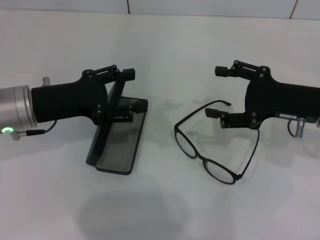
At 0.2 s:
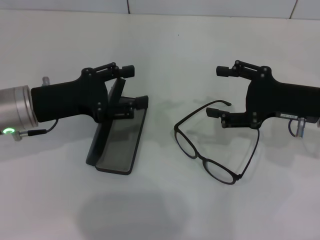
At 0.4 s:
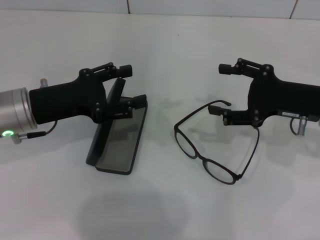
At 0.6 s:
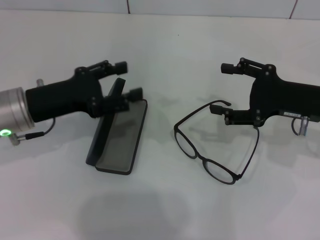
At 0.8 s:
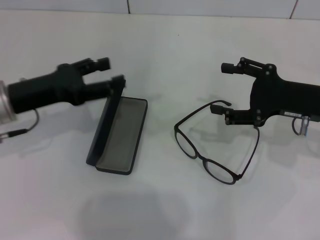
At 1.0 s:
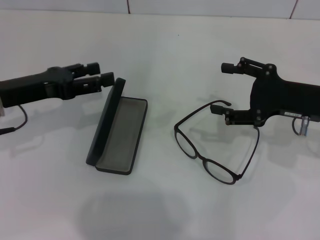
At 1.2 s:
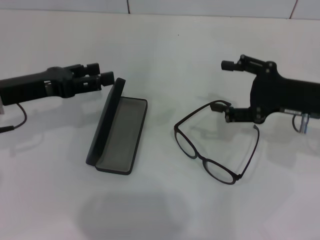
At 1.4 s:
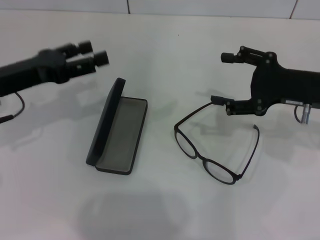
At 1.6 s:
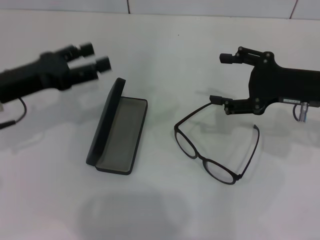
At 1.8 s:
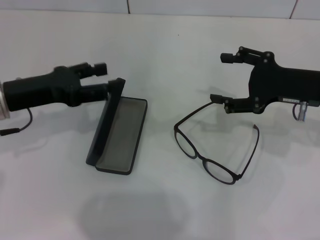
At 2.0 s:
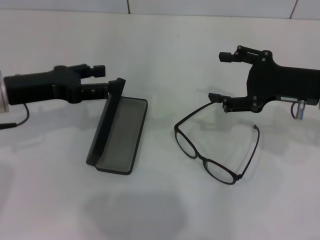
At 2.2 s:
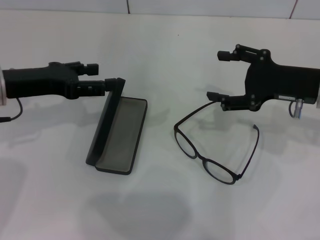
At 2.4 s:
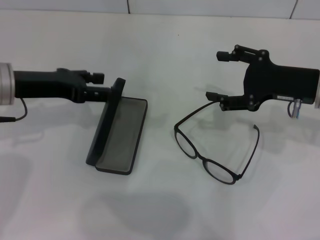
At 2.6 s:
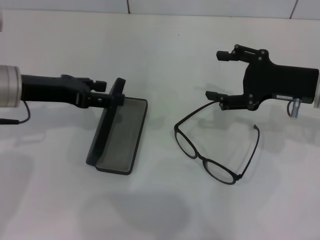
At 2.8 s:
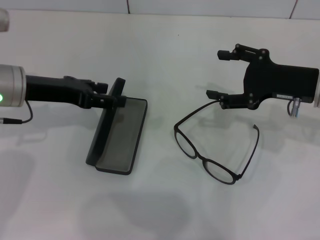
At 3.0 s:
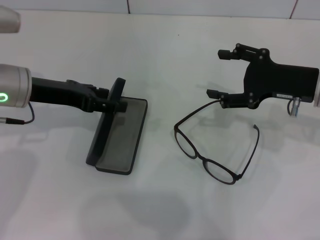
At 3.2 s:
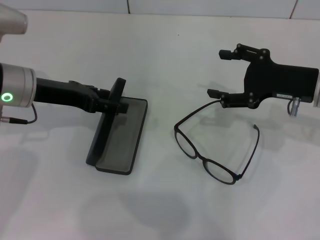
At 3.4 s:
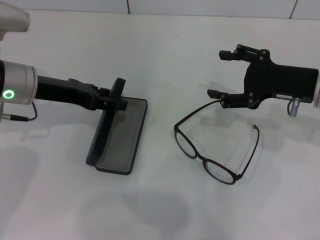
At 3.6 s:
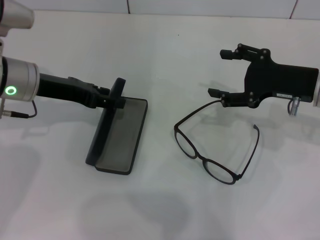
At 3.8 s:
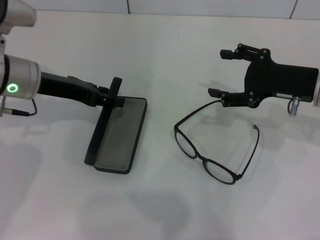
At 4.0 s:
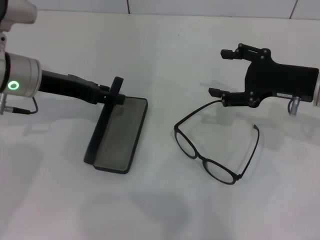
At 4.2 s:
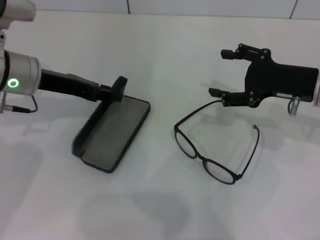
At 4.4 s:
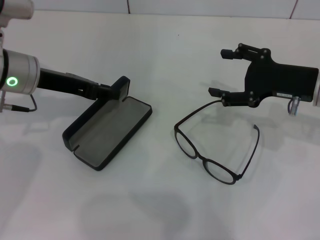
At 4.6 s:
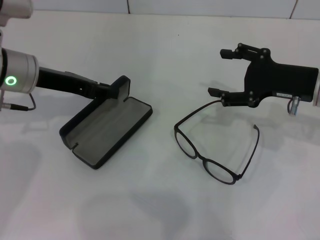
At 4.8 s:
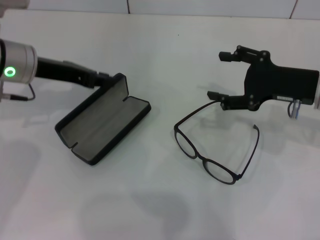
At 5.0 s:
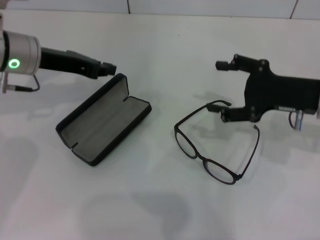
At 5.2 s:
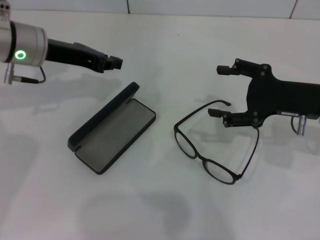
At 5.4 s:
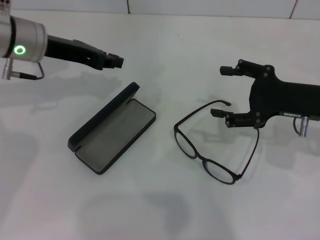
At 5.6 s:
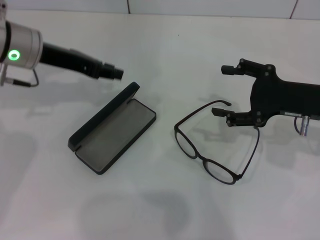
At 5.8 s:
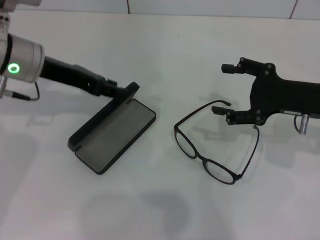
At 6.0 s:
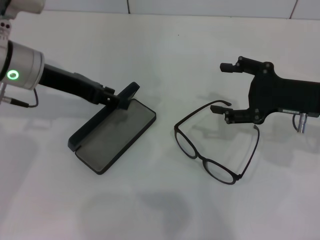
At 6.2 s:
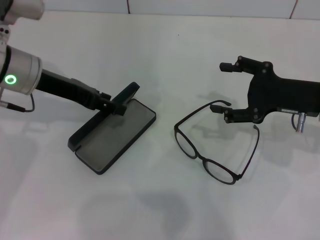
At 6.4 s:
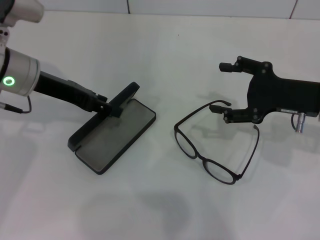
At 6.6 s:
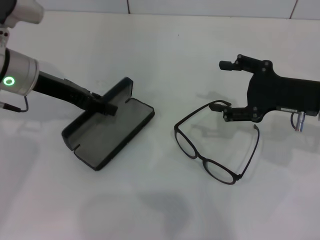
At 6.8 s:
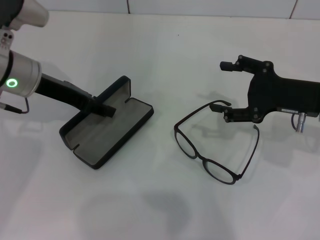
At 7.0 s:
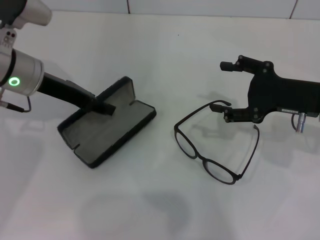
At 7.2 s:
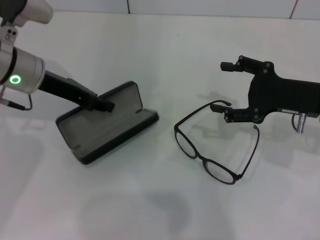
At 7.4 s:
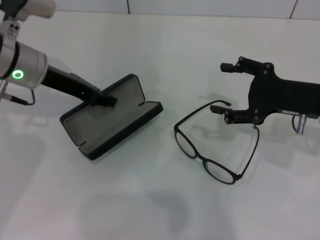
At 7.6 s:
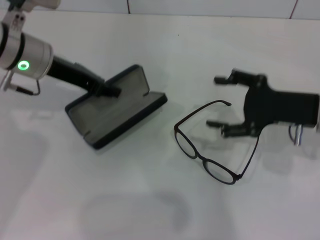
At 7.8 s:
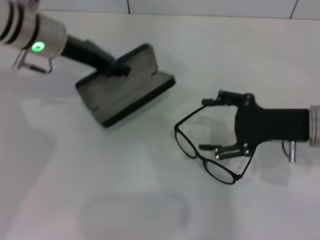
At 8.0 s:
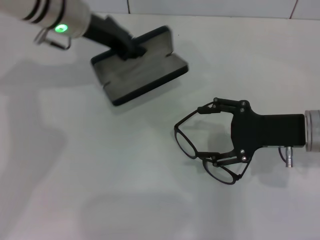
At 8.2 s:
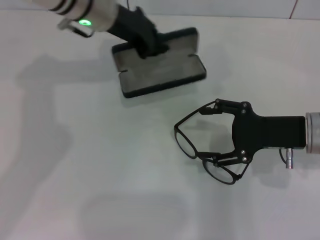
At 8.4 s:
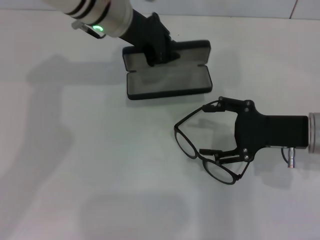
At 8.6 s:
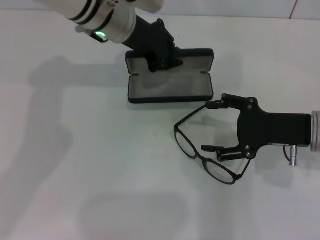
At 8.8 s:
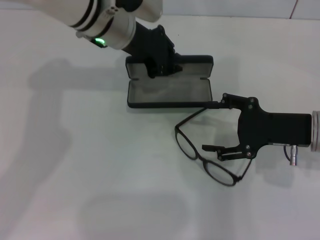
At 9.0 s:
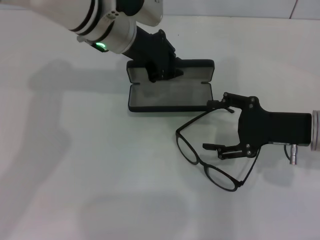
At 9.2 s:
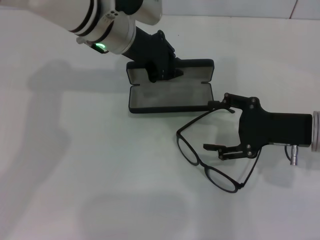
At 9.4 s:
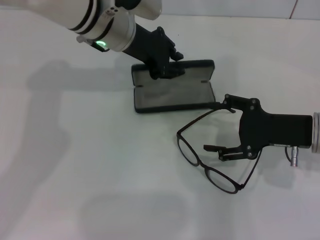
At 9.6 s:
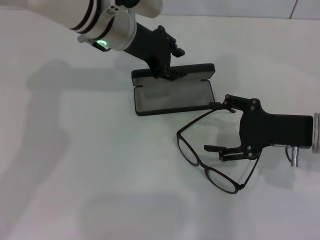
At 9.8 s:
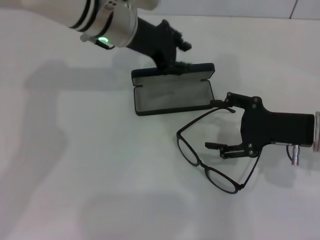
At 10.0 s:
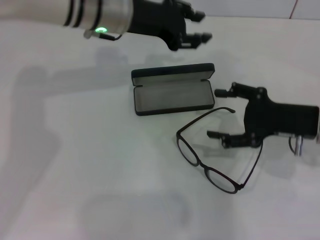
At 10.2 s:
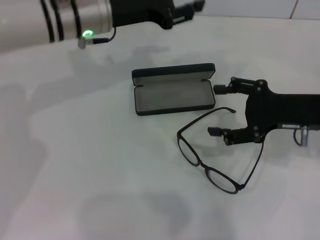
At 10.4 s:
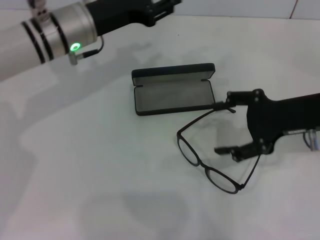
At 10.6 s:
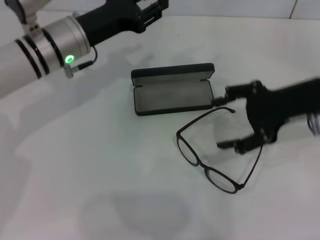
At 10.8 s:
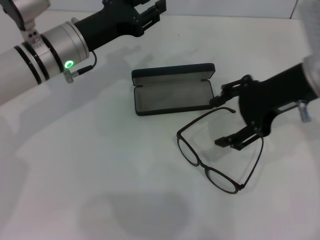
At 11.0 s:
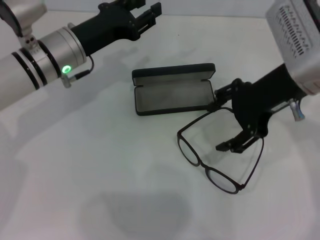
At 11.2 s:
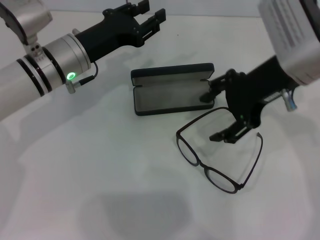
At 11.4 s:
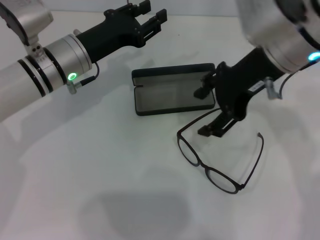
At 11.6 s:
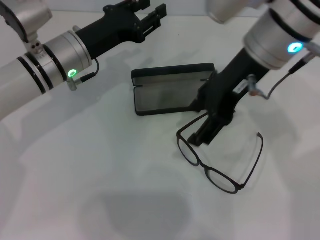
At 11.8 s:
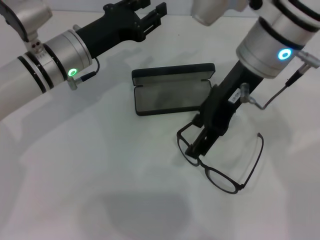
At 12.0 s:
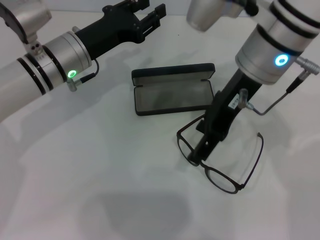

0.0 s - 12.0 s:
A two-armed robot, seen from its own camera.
Step, 0.0 s - 4.2 s: Grab the glasses case with your left hand.
Step, 4.4 s - 9.2 s: Place the glasses case in the center of the table with your left hand.
1.6 s - 3.0 s: The left gripper moves roughly 5 cm.
3.0 s - 4.4 s: The left gripper closes its fingers.
4.4 s - 6.0 s: The left gripper closes and opens again.
6.0 s - 7.6 s: The left gripper closes.
7.6 s - 9.0 s: The left gripper moves to the right, about 10 cm.
9.0 s - 10.4 s: The right gripper goes about 5 cm upward. The left gripper heads to the left, covering some 5 cm.
10.4 s - 12.0 s: The right gripper shifts approximately 15 cm to the left and upward.

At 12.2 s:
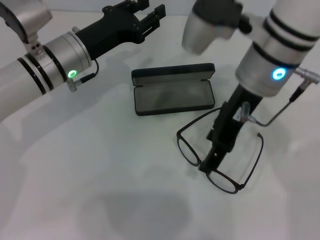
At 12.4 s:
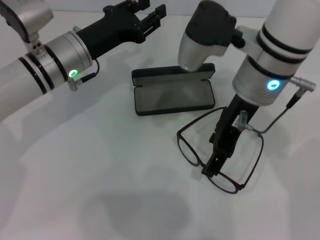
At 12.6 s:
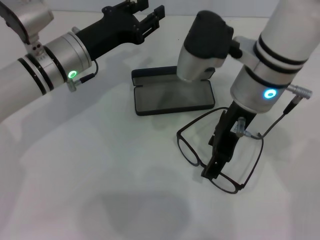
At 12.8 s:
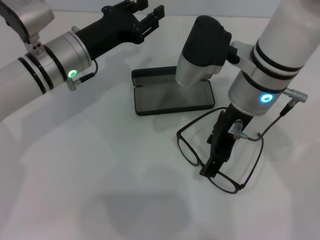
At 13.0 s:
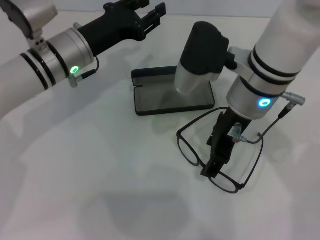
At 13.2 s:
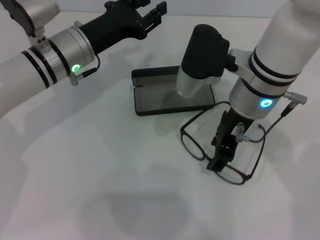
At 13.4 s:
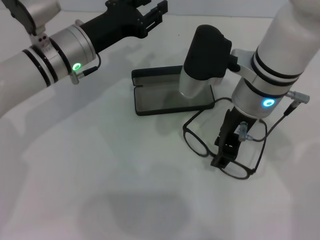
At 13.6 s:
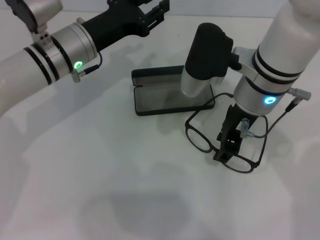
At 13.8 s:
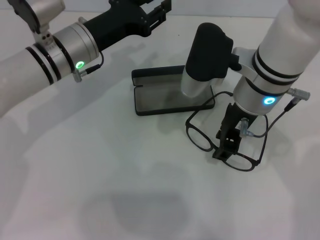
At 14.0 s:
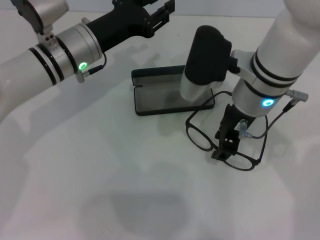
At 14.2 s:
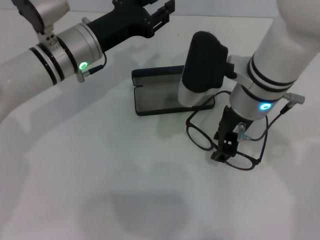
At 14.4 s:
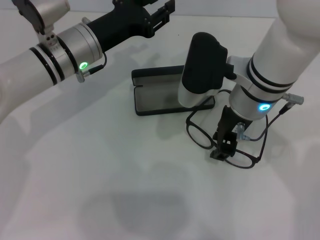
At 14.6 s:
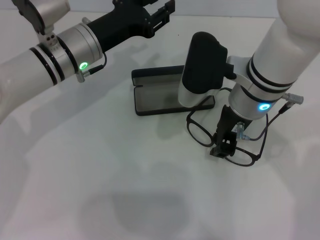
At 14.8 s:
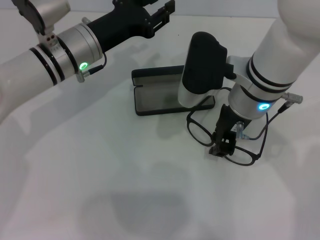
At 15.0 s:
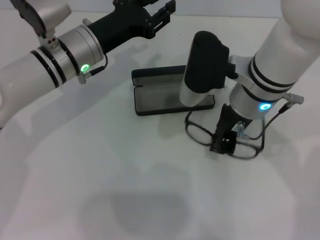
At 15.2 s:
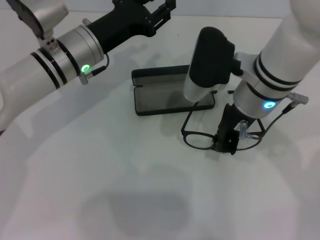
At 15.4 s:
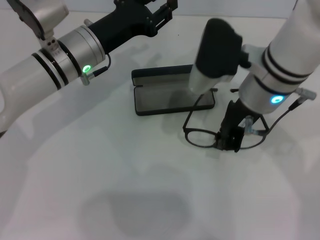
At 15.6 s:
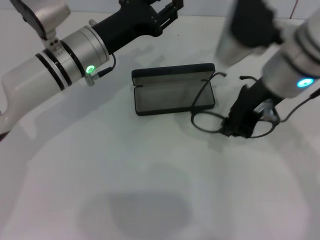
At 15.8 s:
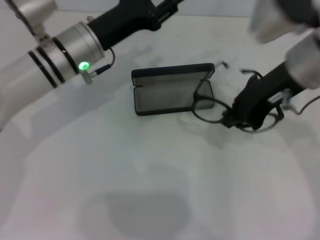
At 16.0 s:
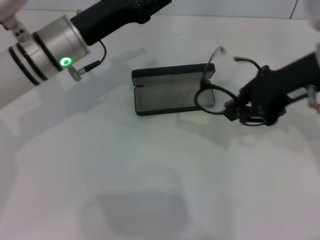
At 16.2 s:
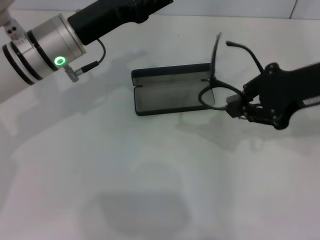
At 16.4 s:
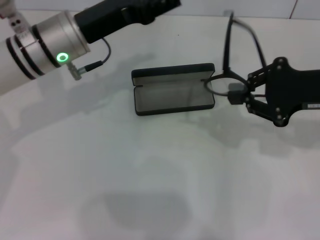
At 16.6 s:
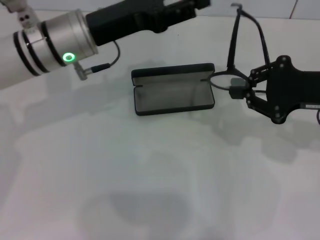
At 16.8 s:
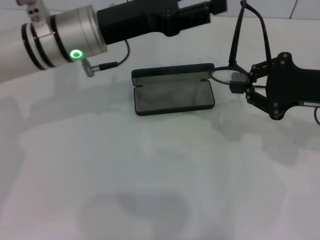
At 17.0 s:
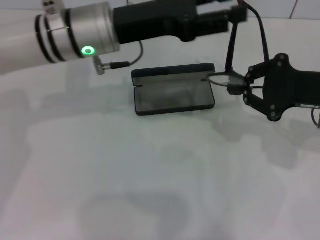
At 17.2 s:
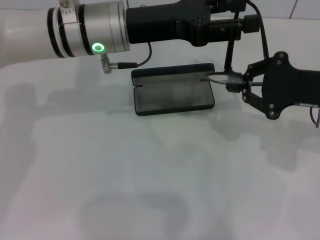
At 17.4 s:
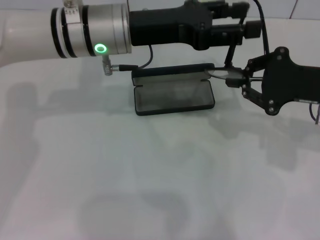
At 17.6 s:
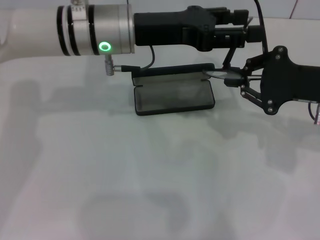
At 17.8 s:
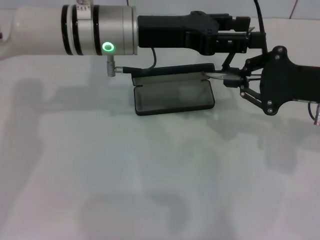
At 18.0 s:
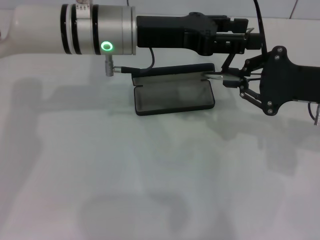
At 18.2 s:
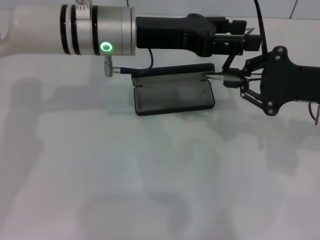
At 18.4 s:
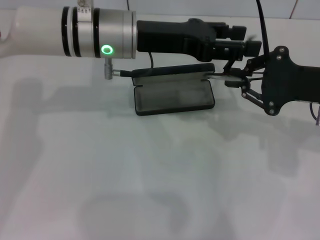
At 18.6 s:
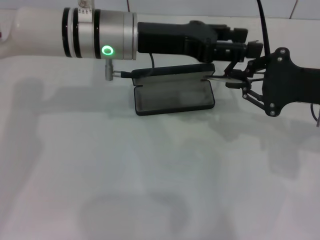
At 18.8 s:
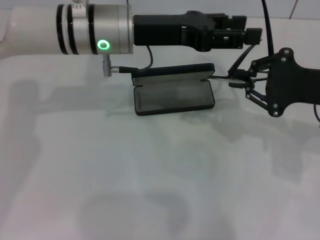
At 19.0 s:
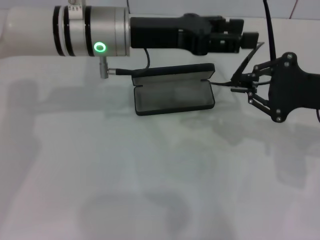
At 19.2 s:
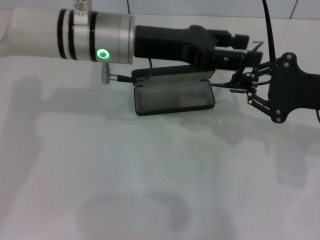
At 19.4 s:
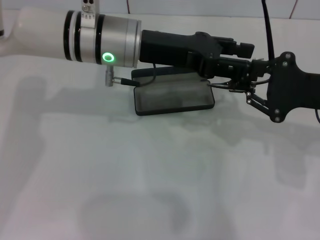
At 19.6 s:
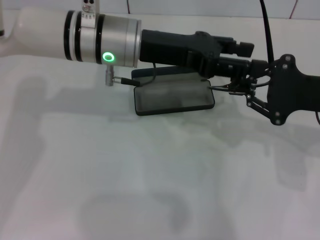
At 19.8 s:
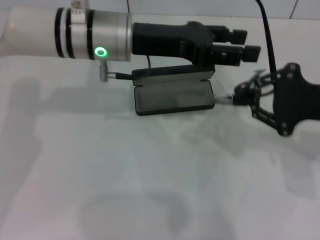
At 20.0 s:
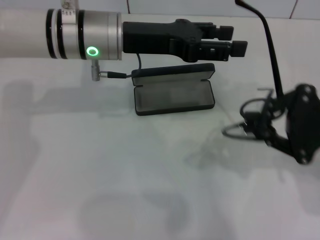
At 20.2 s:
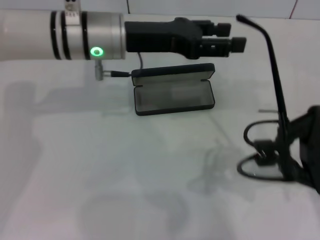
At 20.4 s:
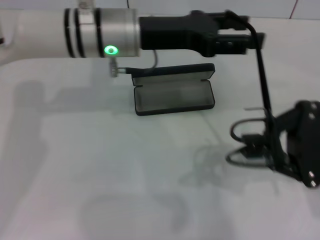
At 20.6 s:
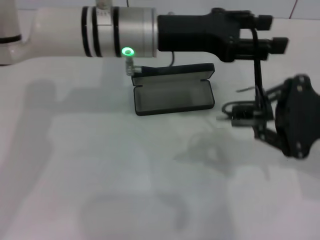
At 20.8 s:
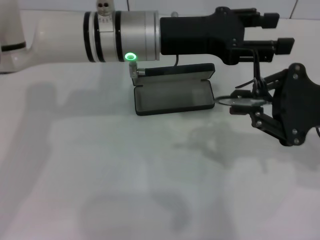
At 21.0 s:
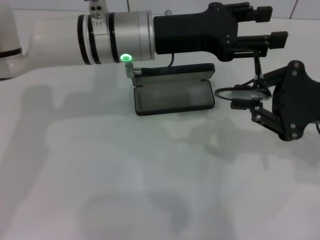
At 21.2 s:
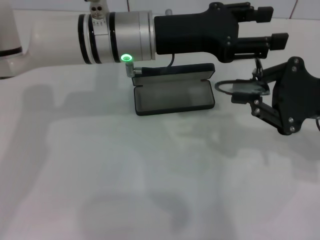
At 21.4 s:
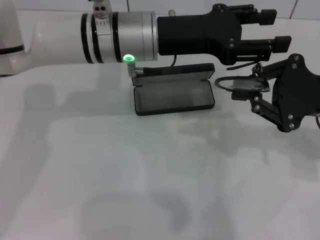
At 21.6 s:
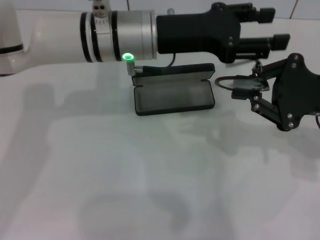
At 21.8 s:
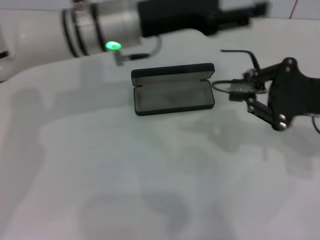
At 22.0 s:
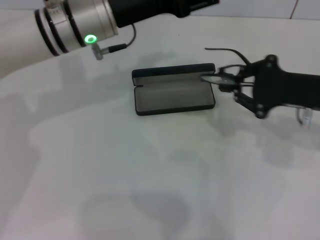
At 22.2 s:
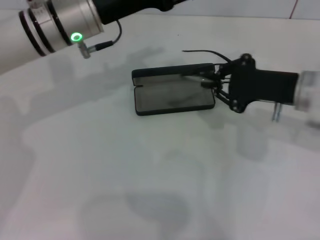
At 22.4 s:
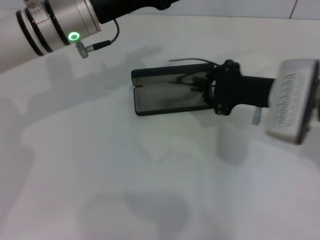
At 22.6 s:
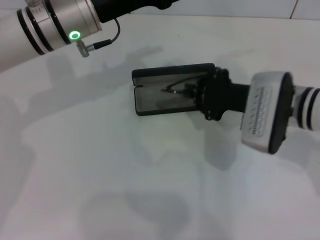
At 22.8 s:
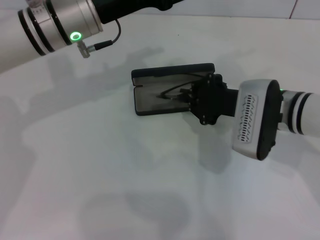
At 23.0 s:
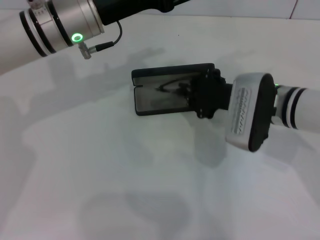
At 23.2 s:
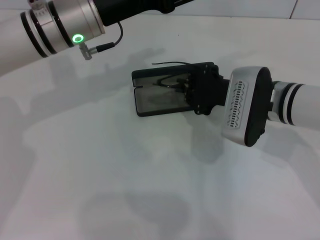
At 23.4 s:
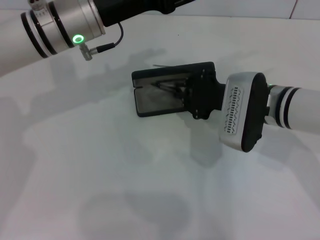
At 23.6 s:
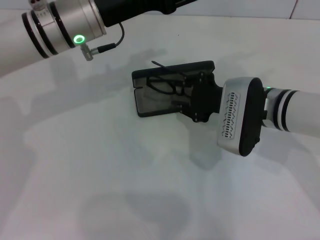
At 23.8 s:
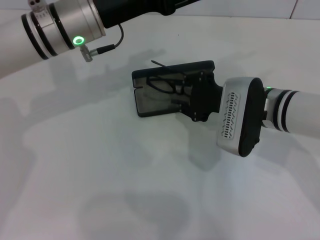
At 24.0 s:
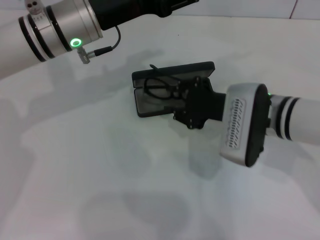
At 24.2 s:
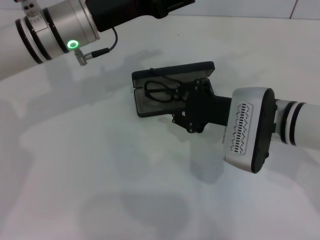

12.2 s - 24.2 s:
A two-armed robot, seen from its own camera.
Step, 12.2 s - 15.2 s: Grab the eyeglass frame with your right hand.
Step, 15.4 s - 21.8 s: Fold the frame with your left hand.
12.2 s - 13.8 s: The right gripper closes its fingers.
13.8 s - 15.2 s: Both grippers stay put.
15.2 s - 16.6 s: The right gripper travels to the right by some 15 cm.
16.6 s - 18.2 s: The left gripper moves to the right, roughly 5 cm.
18.2 s - 19.8 s: The grippers stay close to where they were, moving slightly.
21.2 s - 22.6 s: The right gripper goes roughly 10 cm to the left and downward. The left gripper shifts approximately 5 cm to the left.
22.6 s - 24.2 s: The grippers stay close to where they were, moving slightly.
